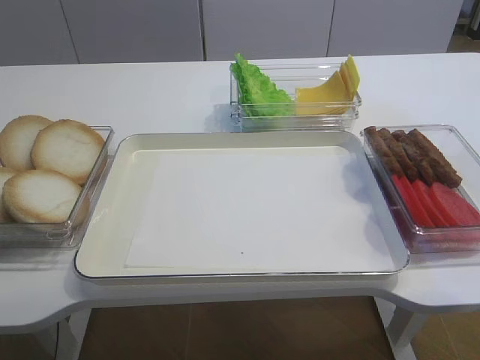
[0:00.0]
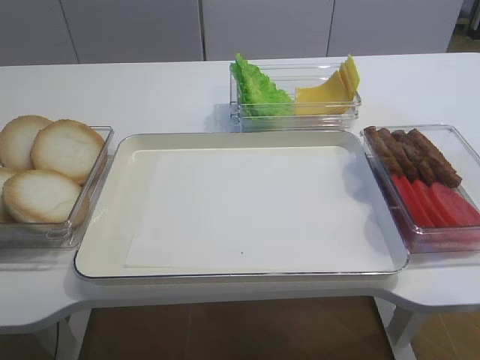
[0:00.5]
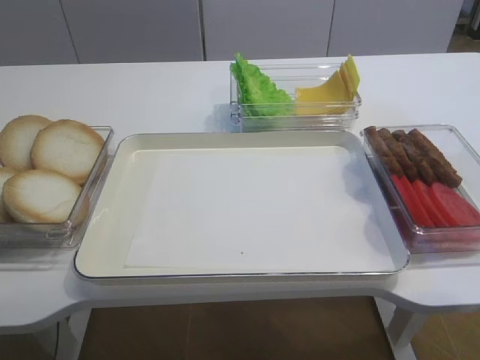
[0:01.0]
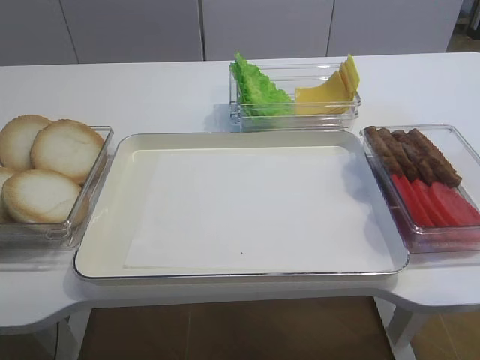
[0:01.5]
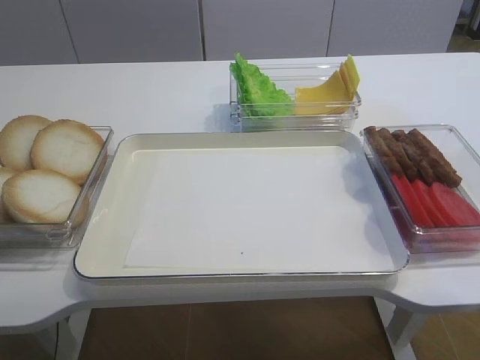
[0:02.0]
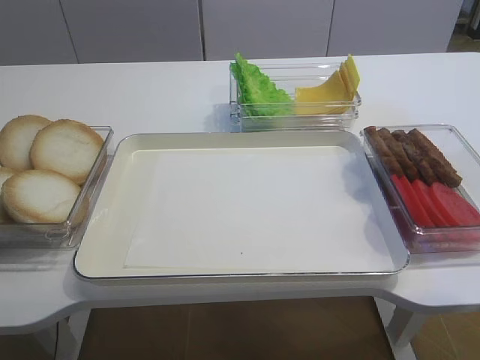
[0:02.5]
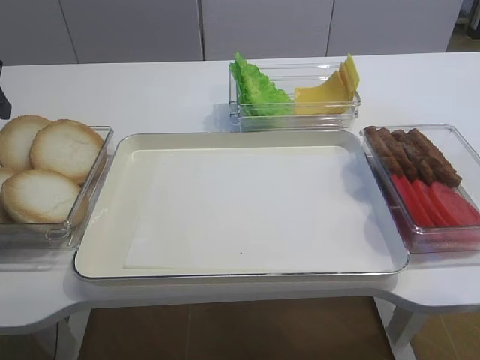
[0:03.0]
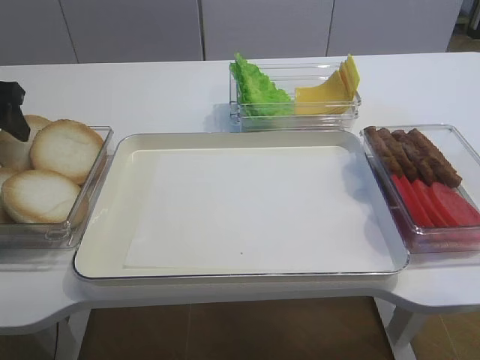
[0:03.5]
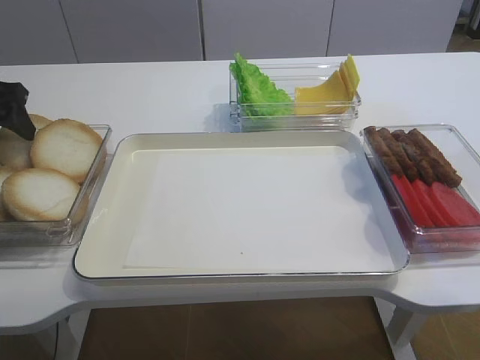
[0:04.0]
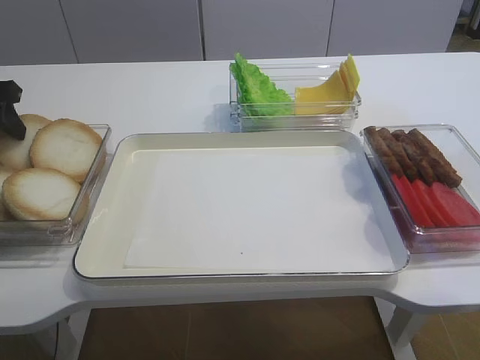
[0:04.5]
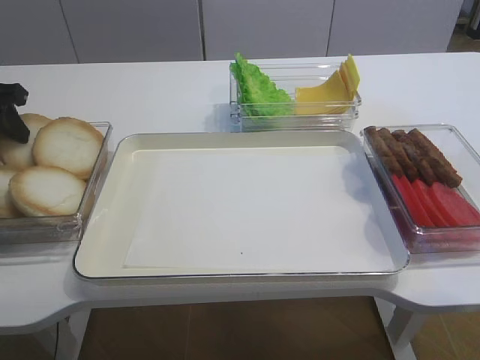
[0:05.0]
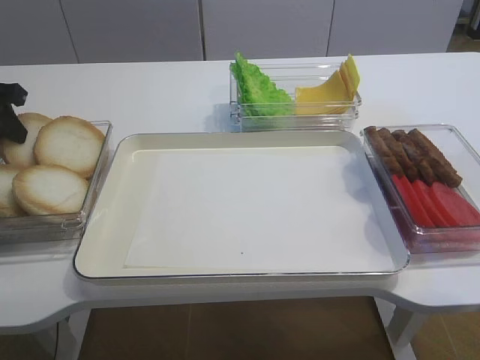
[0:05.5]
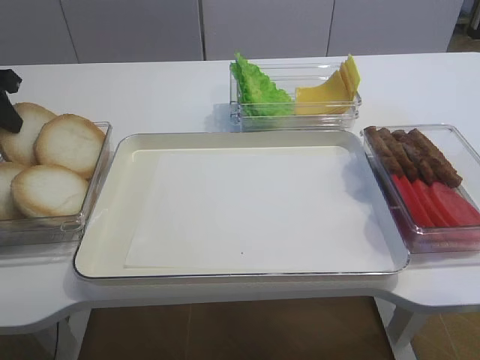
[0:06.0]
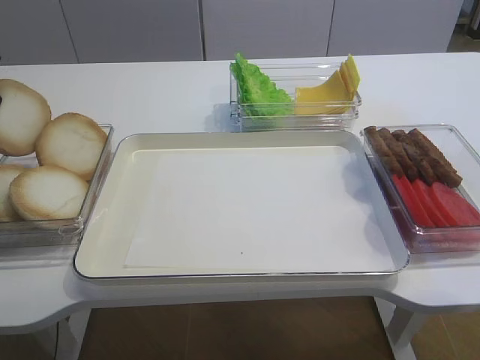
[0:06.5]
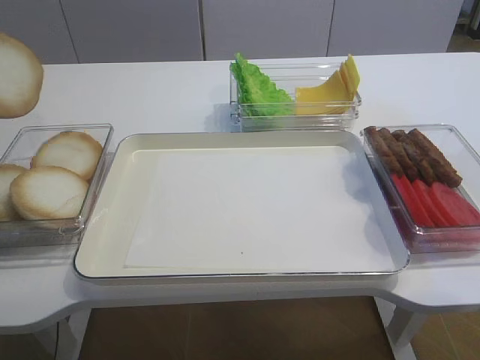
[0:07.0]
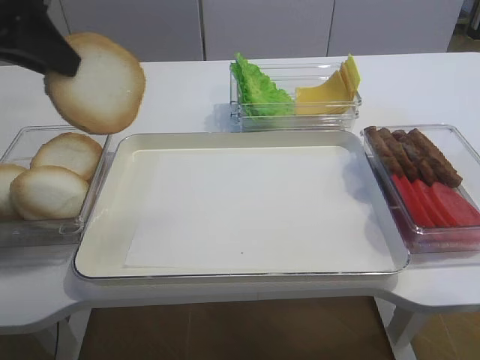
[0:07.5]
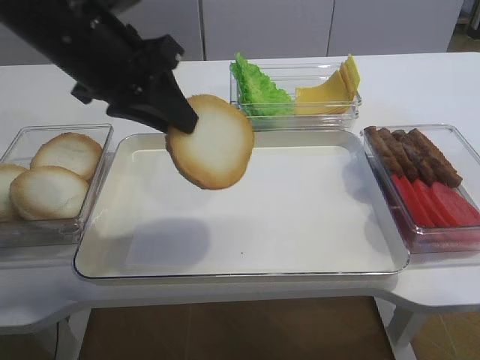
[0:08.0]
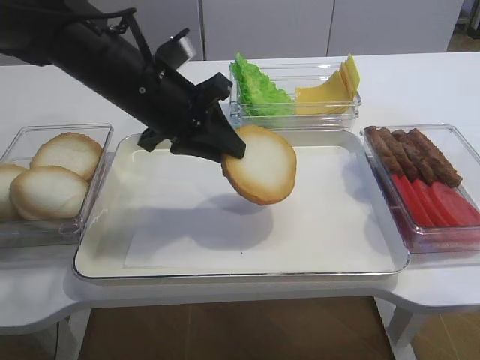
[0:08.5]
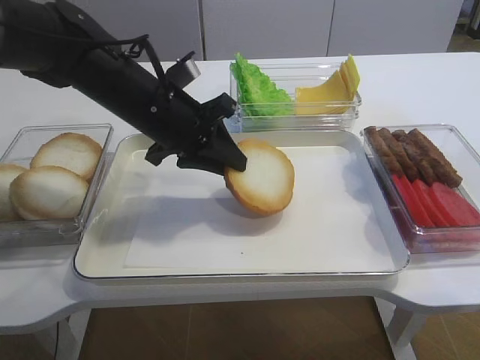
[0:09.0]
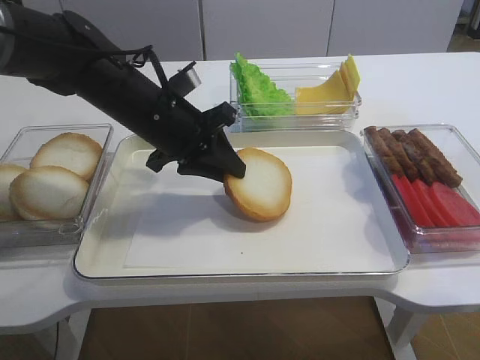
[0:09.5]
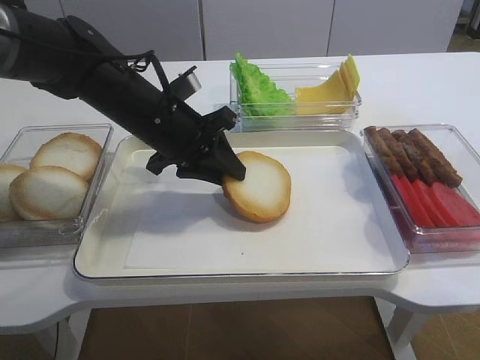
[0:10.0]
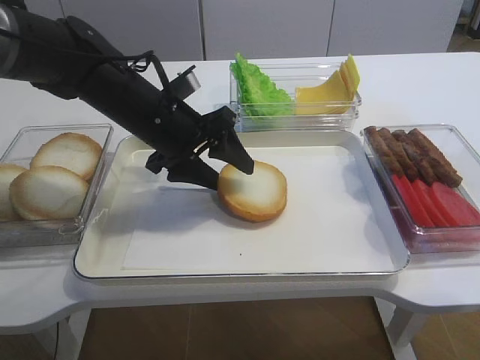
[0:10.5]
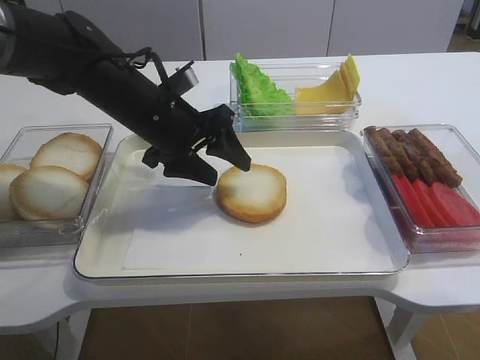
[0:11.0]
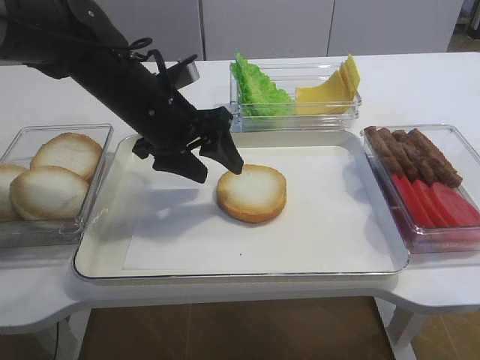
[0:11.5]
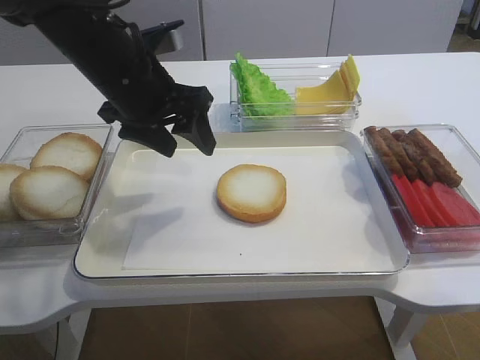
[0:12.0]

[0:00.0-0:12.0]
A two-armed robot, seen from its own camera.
Step, 0:00.0 to 0:06.0: Pick up the bread slice with the left gripper.
Step, 0:06.5 to 0:10.5: Place the bread slice on the tray with the left gripper.
0:02.0 to 0:04.0: The left gripper moves forward and downward, approximately 25 cm.
0:04.0 to 0:06.0: The left gripper closes its fingers.
0:06.0 to 0:08.0: The left gripper heads to the right, covering approximately 20 cm.
0:08.0 to 0:10.0: The left gripper shifts about 15 cm downward and forward.
0:10.0 to 0:12.0: The left gripper is displaced upward by about 5 cm, and opens up.

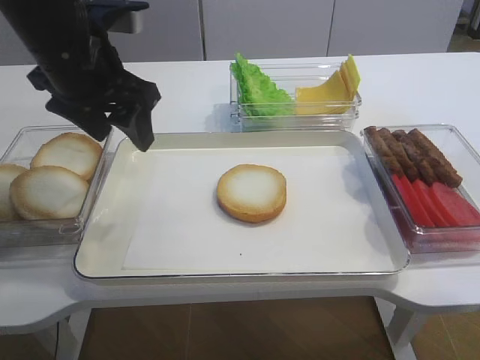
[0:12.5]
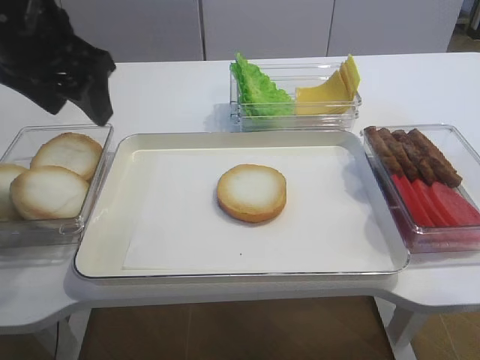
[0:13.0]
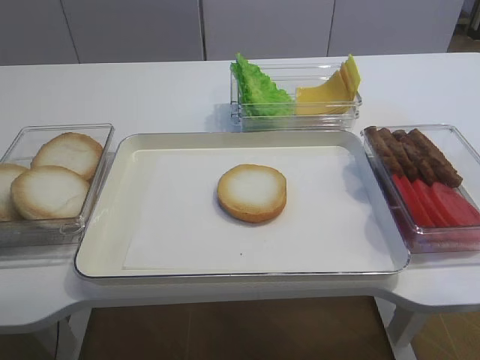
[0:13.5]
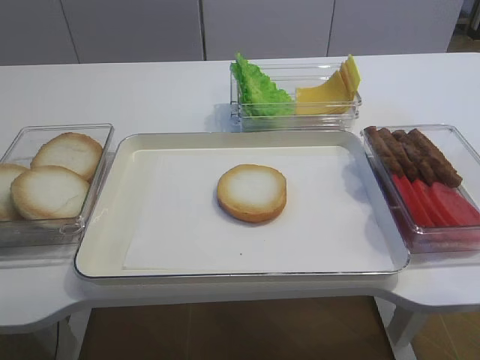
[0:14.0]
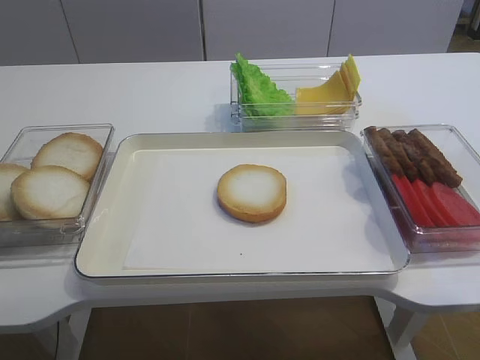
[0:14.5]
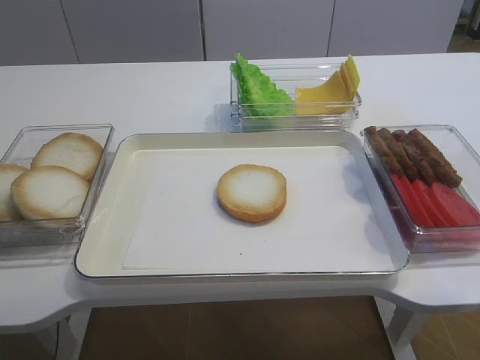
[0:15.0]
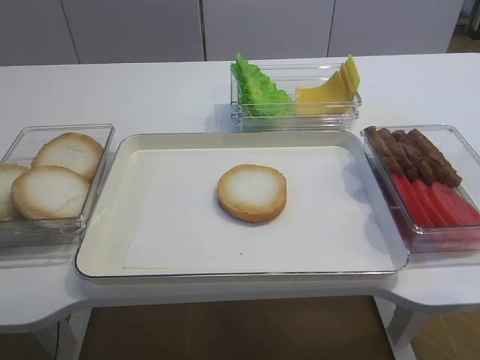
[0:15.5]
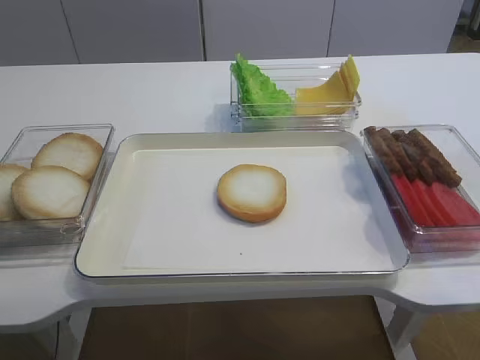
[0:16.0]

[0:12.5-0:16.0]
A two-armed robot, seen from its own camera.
0:12.5 to 0:14.5: The left gripper goes approximately 30 cm backward and to the left.

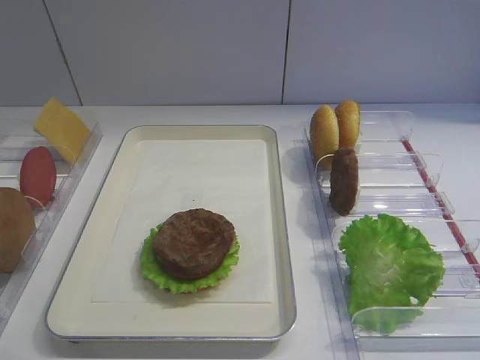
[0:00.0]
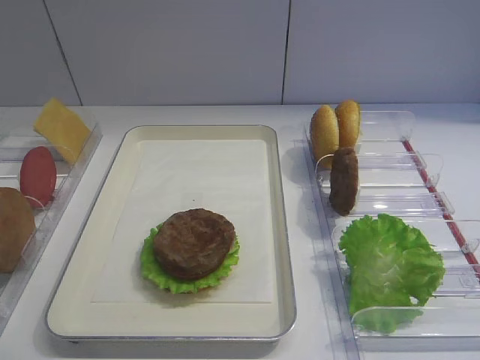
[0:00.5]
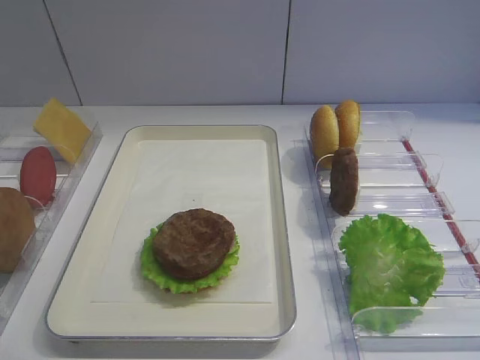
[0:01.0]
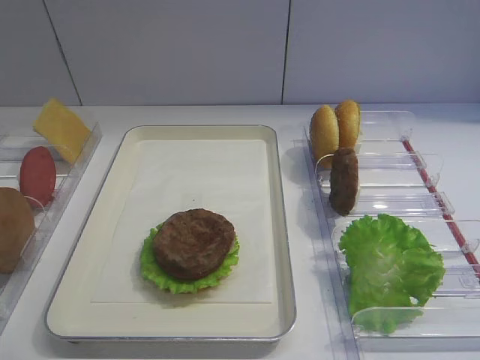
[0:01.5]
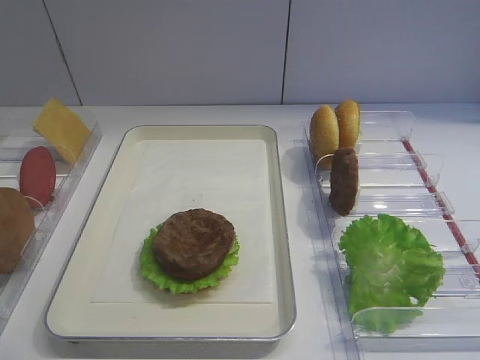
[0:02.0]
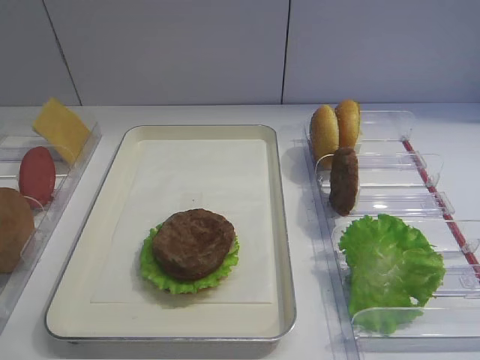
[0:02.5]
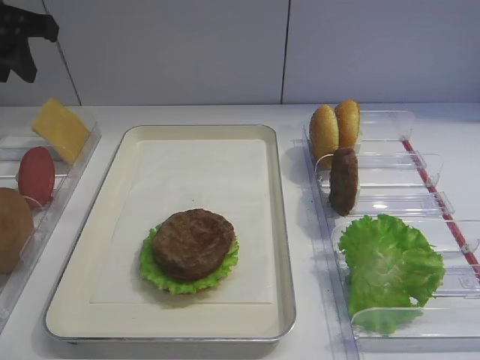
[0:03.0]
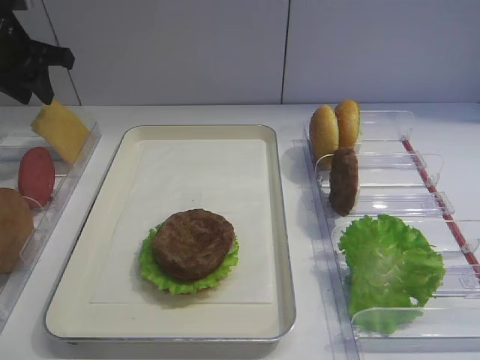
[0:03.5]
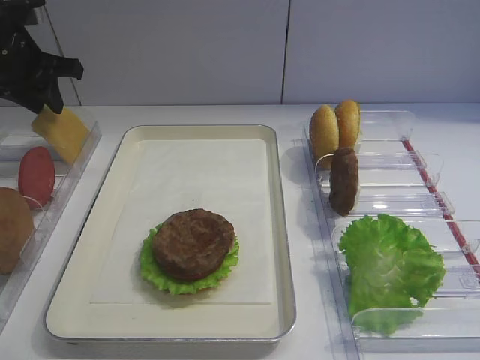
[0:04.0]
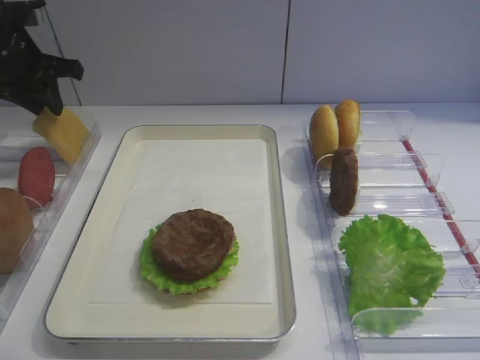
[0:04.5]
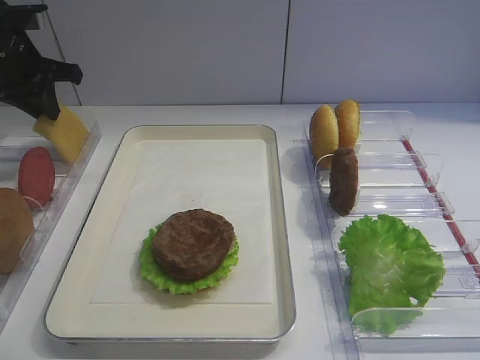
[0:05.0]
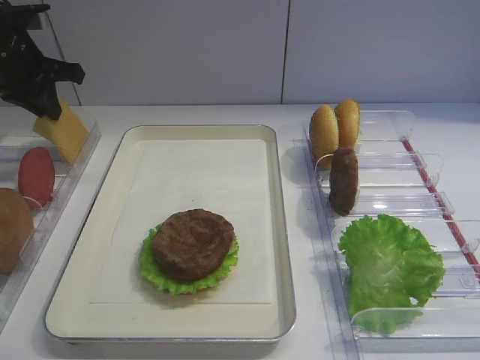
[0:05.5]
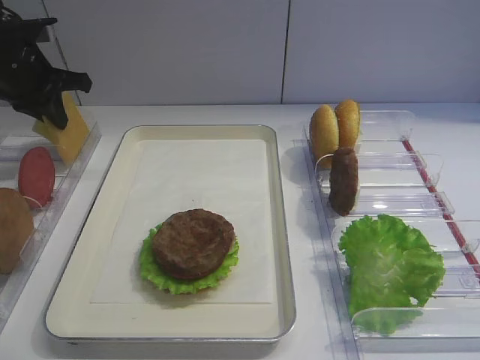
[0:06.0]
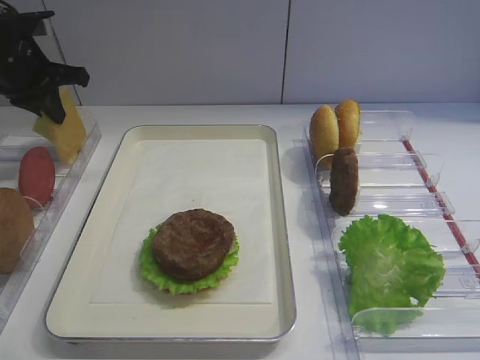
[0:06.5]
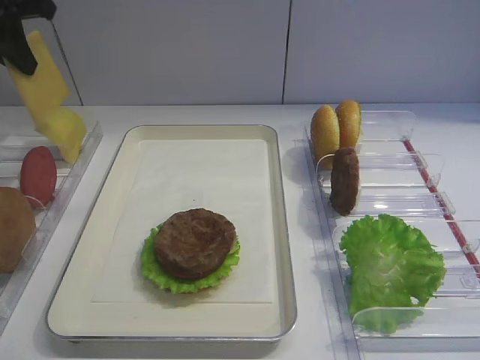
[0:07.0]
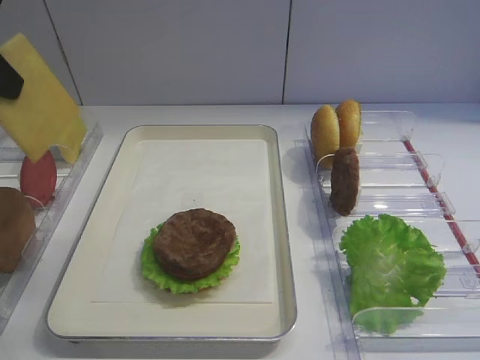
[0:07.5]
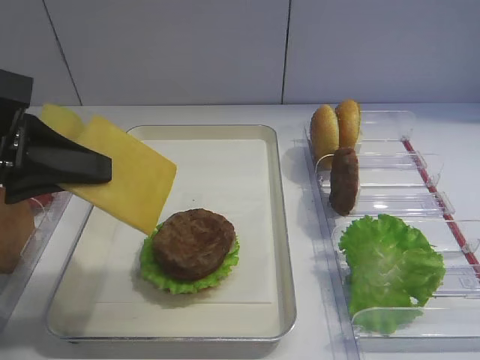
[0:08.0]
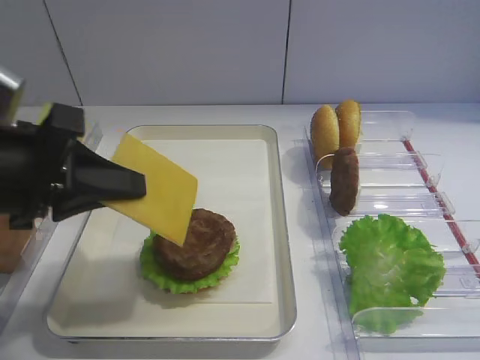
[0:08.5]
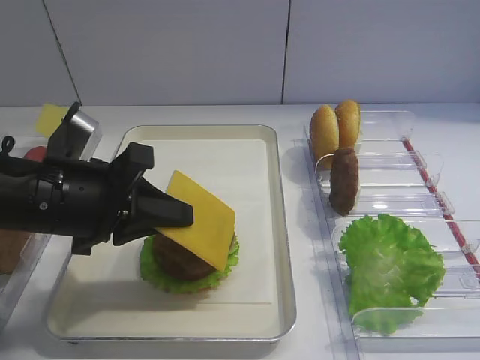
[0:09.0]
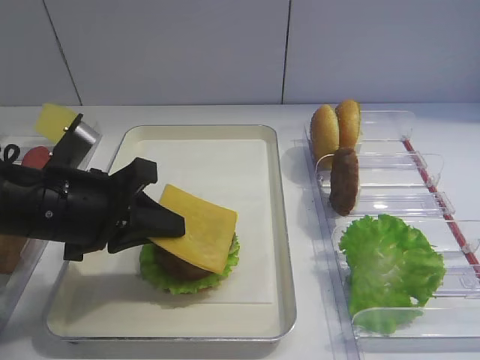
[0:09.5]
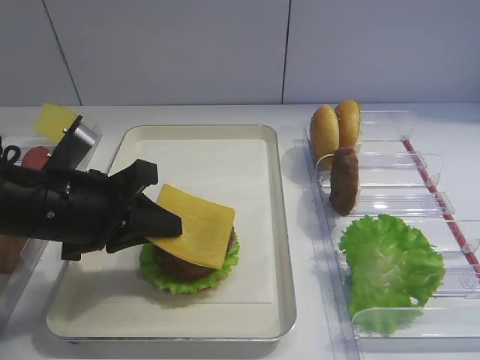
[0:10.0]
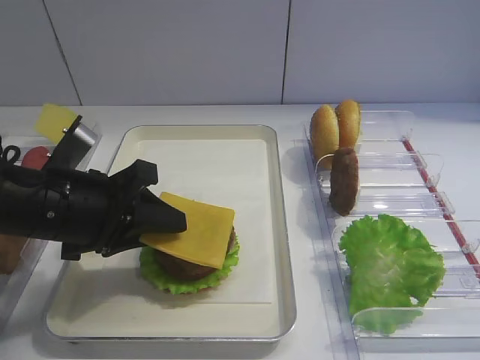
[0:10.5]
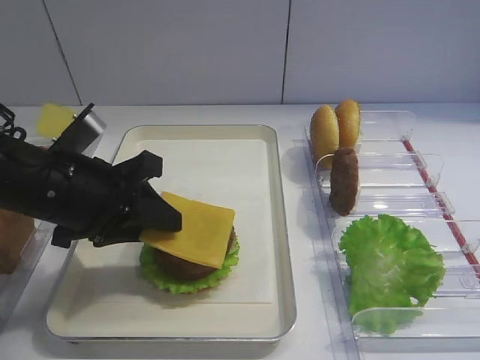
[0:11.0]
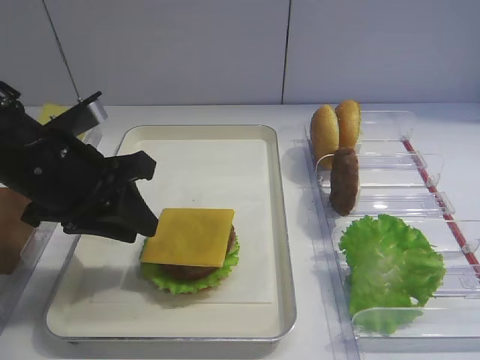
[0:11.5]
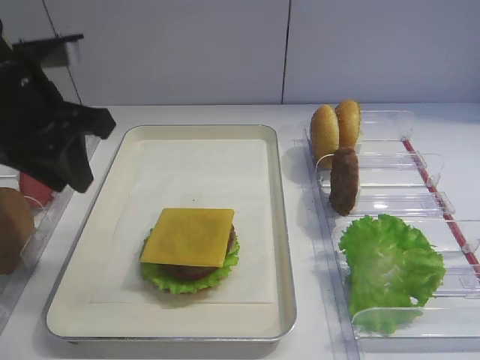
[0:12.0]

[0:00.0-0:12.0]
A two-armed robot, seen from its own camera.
0:02.0 to 0:04.0: The left gripper goes roughly 40 cm forward.
0:04.0 to 0:06.0: The left gripper closes.
0:06.0 to 0:08.0: The left gripper is displaced backward by approximately 25 cm.
0:08.0 to 0:10.0: The left gripper is displaced downward and to the right by some 10 cm.
0:10.0 to 0:12.0: The left gripper is displaced upward by roughly 10 cm, and opens its fingers.
